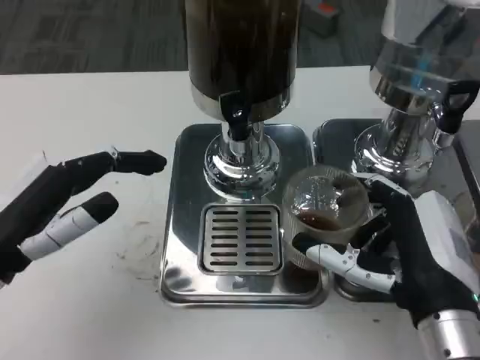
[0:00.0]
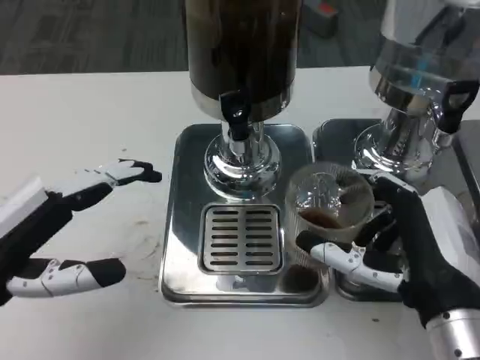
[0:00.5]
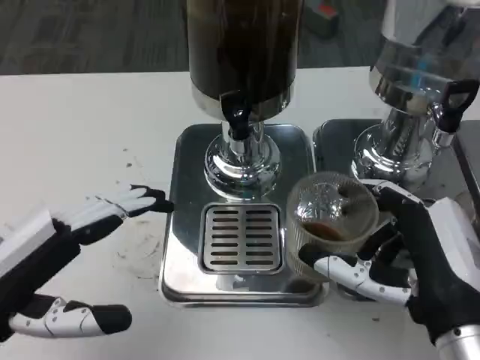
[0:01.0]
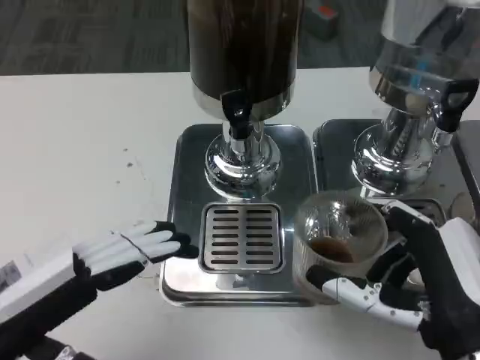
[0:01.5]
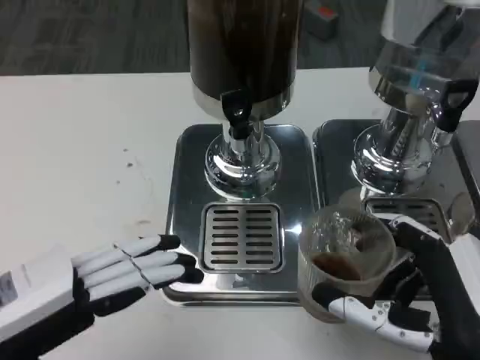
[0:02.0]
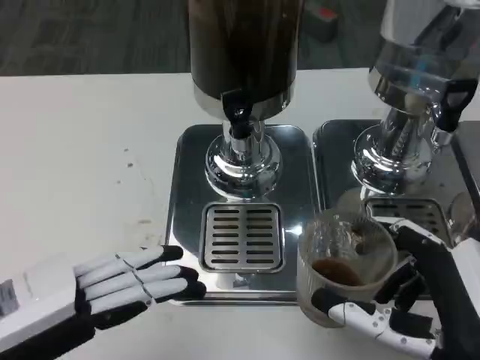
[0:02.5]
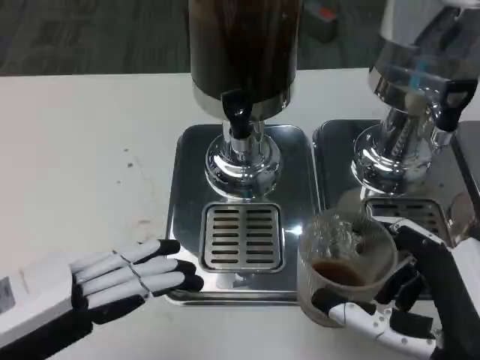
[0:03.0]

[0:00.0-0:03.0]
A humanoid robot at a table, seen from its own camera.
Task of the whole recording: Grasp the cup under the faucet to collect the drink, then remove the cup.
0:00.0 to 0:01.5: The left hand is displaced backward by some 5 cm.
0:01.5 to 0:03.0: The hands stay close to where they were, moving slightly.

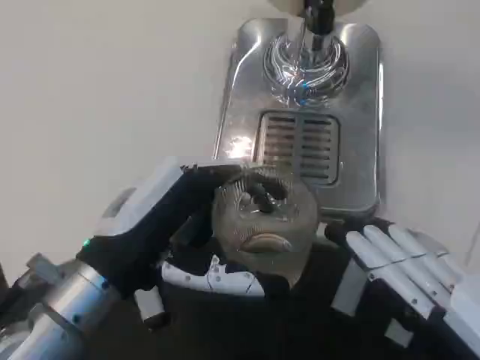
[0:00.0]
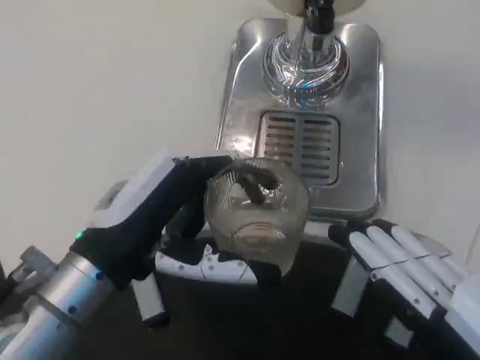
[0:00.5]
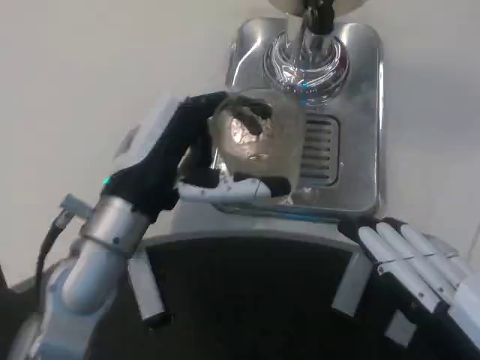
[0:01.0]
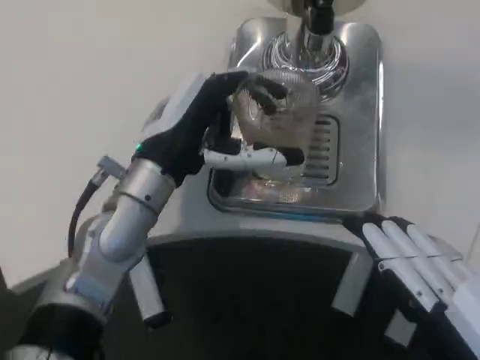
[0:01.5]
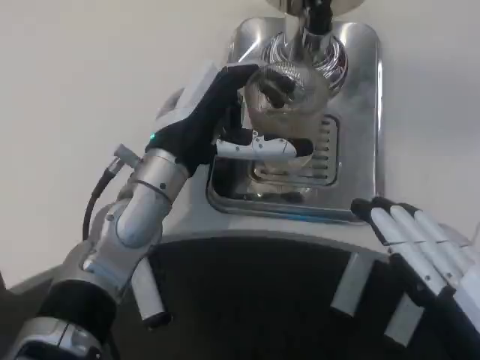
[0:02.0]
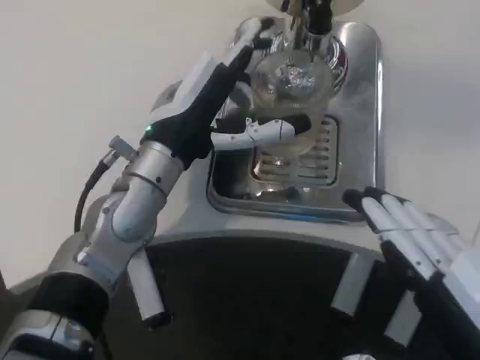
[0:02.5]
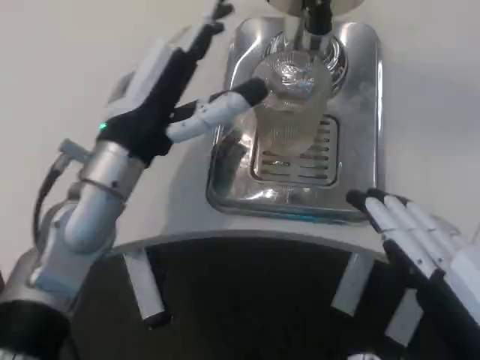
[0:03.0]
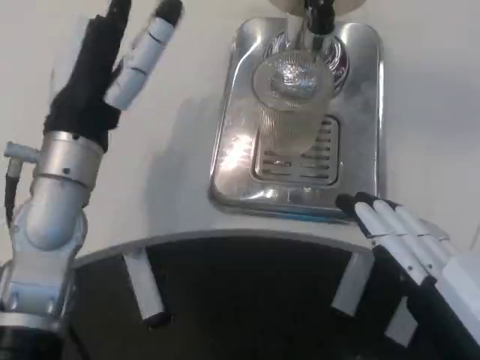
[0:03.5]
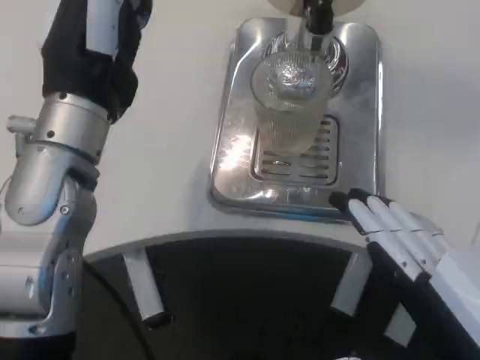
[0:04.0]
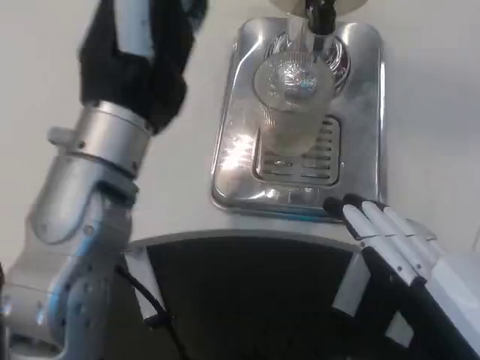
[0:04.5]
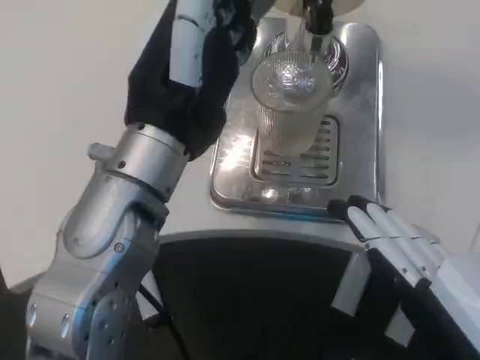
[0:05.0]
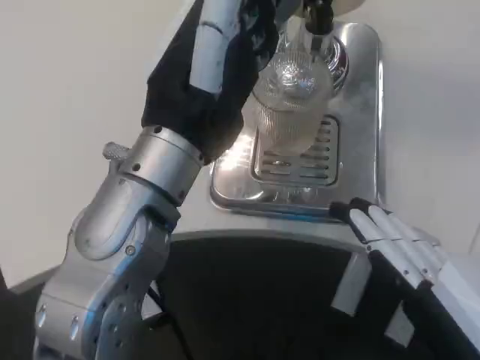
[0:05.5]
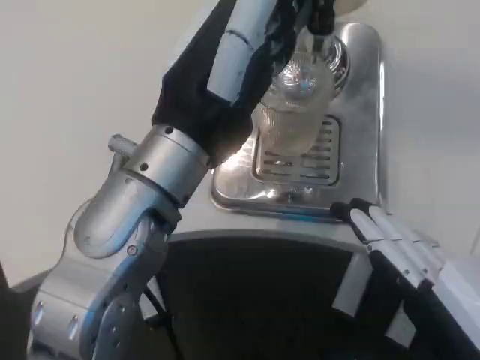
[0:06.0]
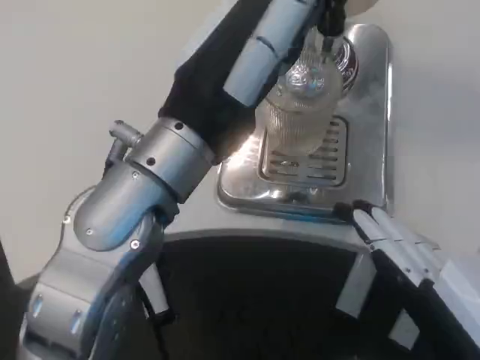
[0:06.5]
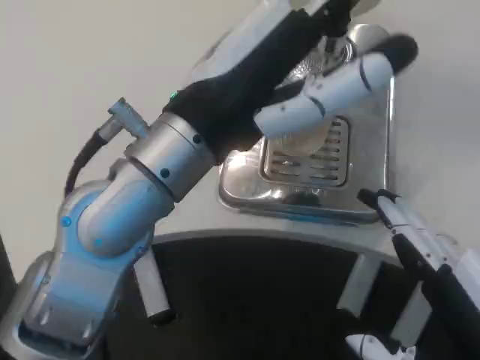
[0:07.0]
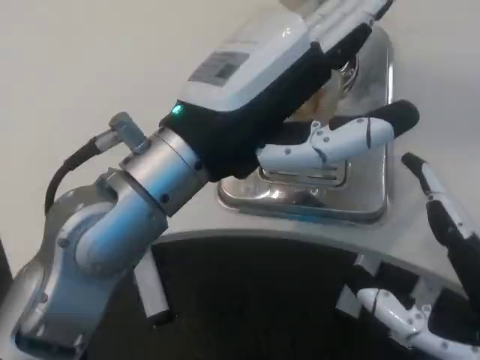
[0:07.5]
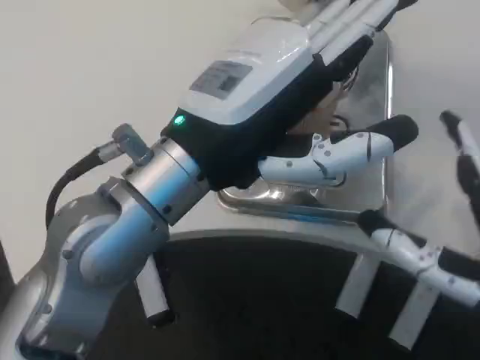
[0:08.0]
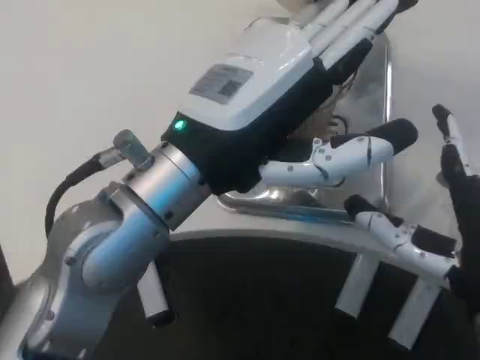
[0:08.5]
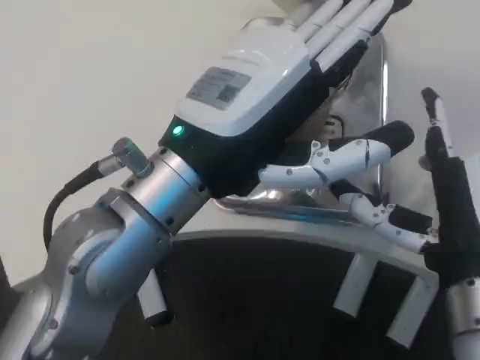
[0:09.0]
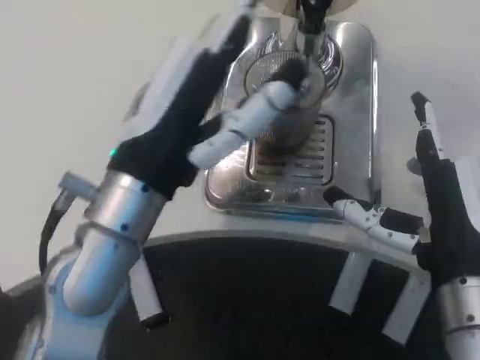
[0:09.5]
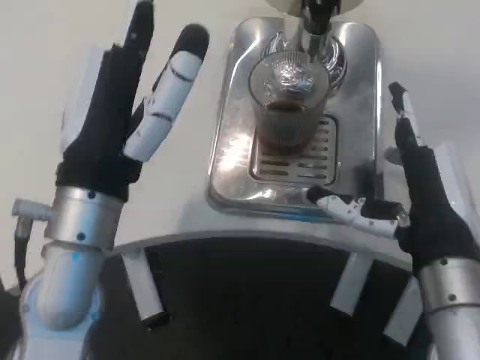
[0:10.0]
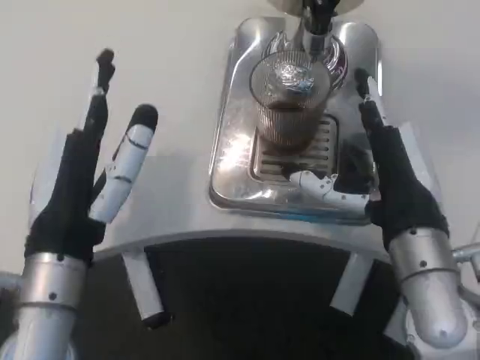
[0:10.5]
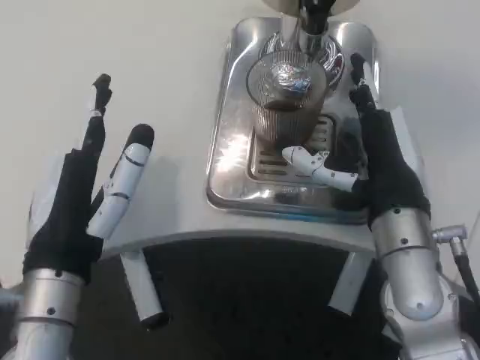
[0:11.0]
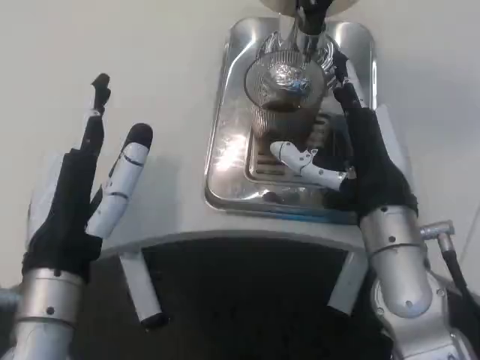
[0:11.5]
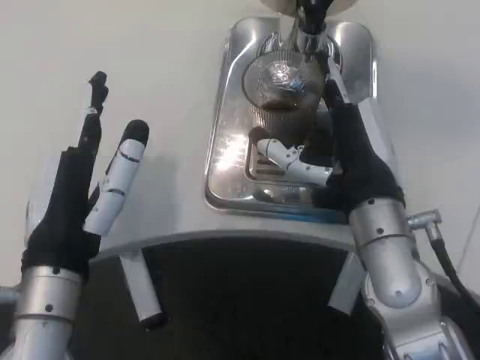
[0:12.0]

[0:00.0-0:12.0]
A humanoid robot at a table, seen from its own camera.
Task of the whole recording: Grasp the cup under the faucet to collect the drink, then remove the cup.
0:00.0 to 0:02.0: The left hand heads forward and to the right, covering approximately 15 cm.
0:02.0 to 0:04.0: The left hand is displaced upward and backward by some 10 cm.
0:04.0 to 0:06.0: The left hand travels to the right by approximately 5 cm.
0:06.0 to 0:08.0: The right hand travels forward by approximately 5 cm.
0:08.0 to 0:10.0: The left hand is displaced downward by approximately 5 cm. Meanwhile the right hand heads forward, covering some 10 cm.
0:10.0 to 0:12.0: The right hand goes approximately 5 cm forward; the left hand goes about 5 cm downward.

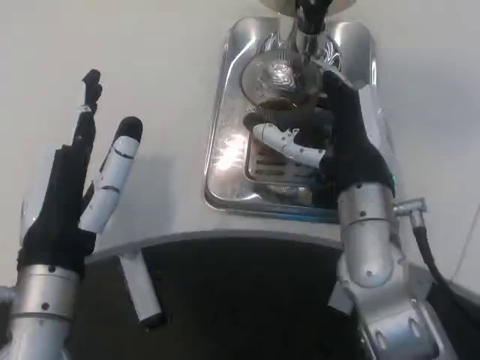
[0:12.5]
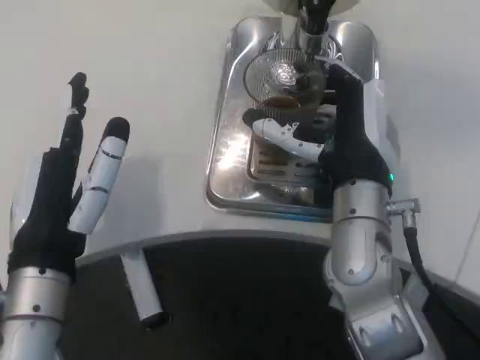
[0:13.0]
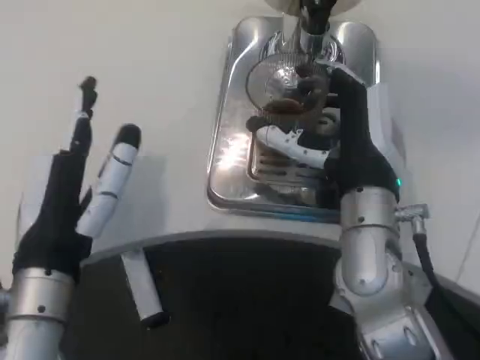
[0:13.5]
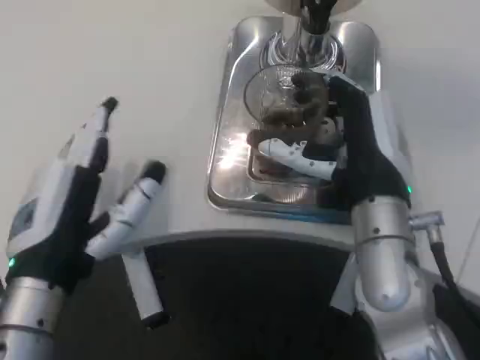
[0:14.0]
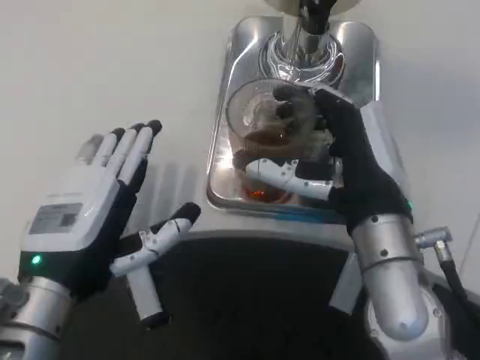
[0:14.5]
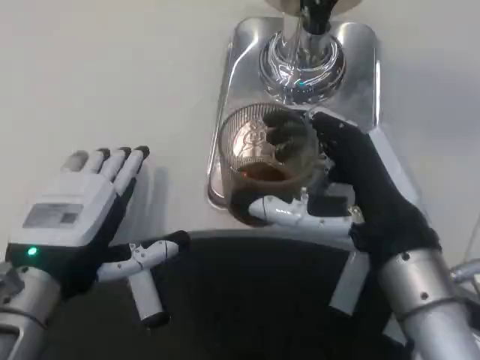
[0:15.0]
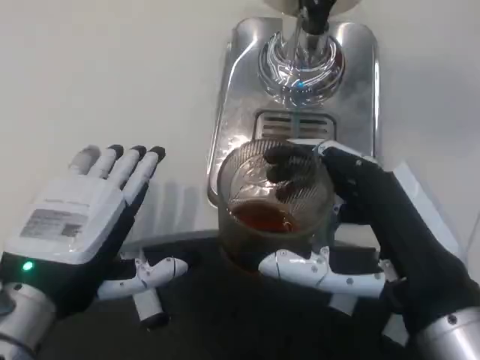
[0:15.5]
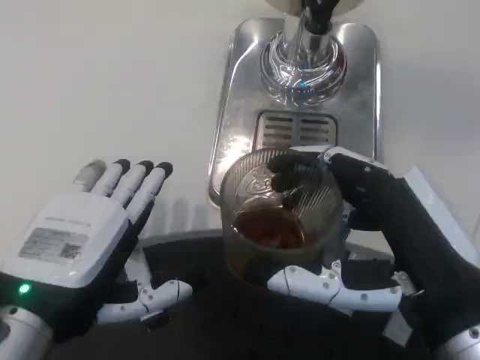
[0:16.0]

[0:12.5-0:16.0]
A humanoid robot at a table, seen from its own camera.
Task of the whole recording: Grasp the cup under the faucet to collect the drink, then remove the cup.
0:14.5 to 0:16.0: The right hand travels backward by roughly 10 cm; the left hand moves some 5 cm.

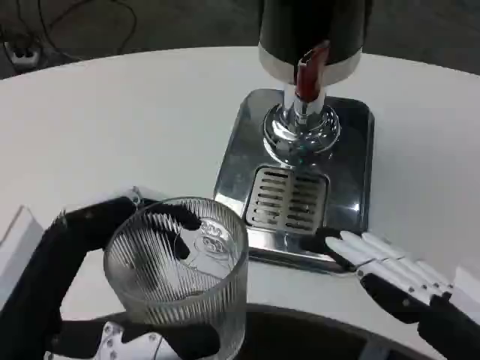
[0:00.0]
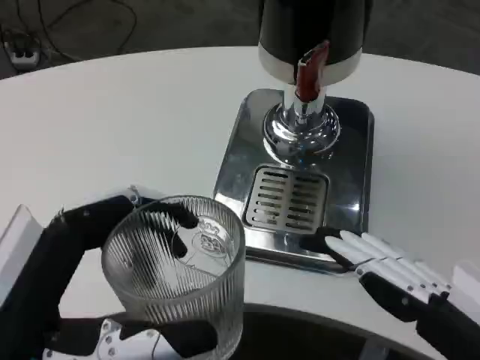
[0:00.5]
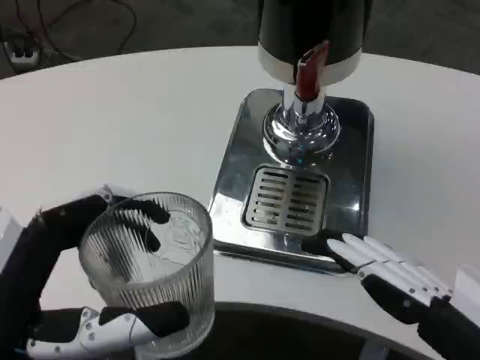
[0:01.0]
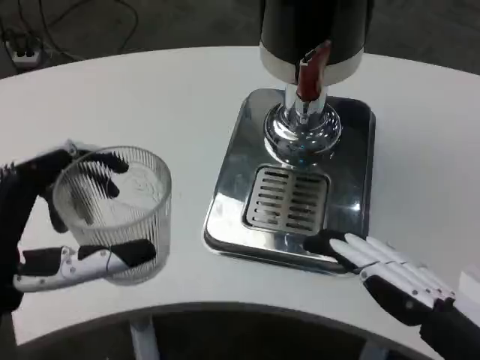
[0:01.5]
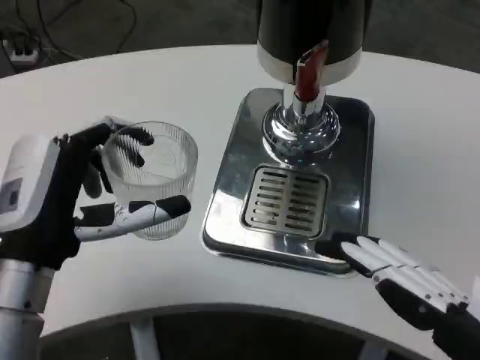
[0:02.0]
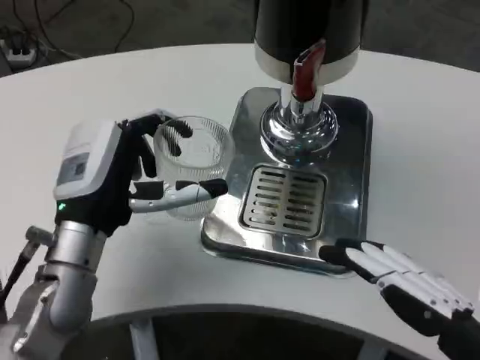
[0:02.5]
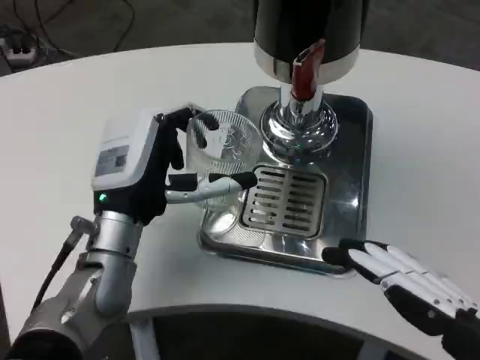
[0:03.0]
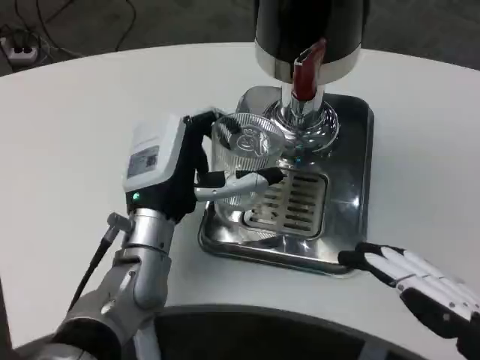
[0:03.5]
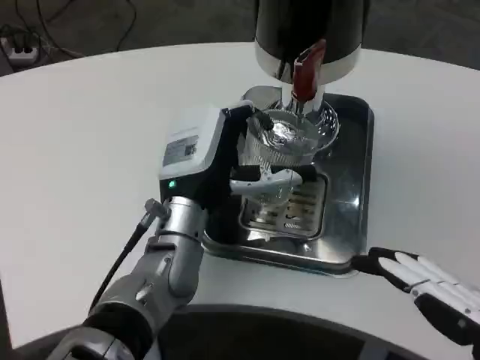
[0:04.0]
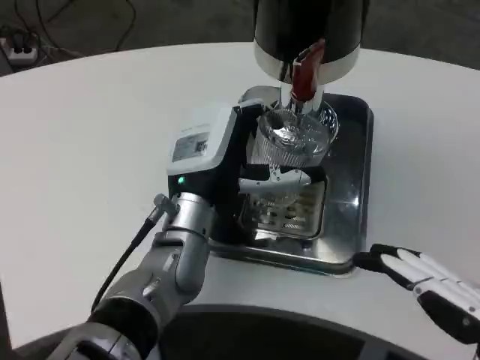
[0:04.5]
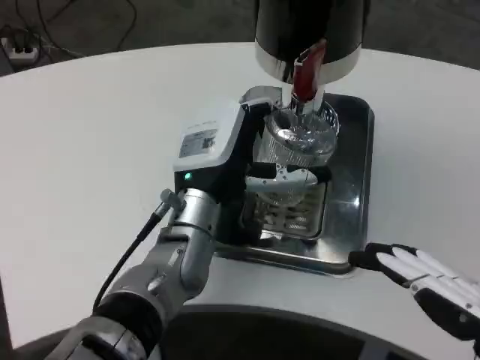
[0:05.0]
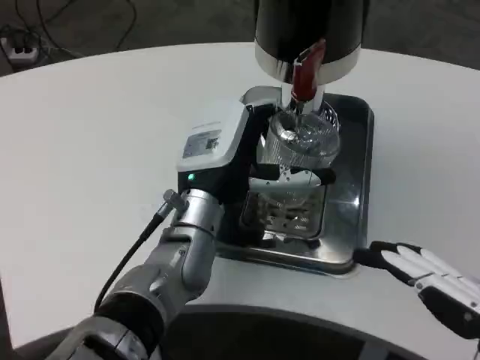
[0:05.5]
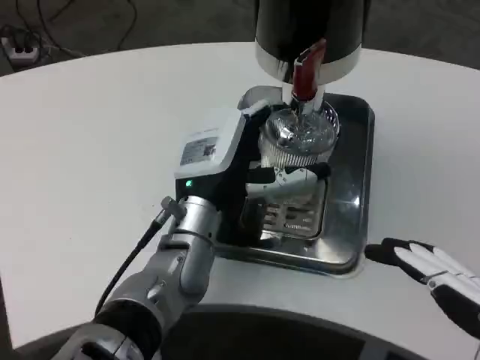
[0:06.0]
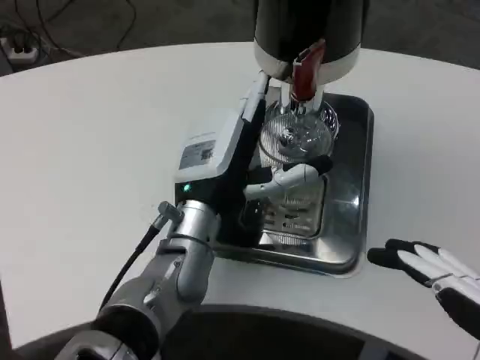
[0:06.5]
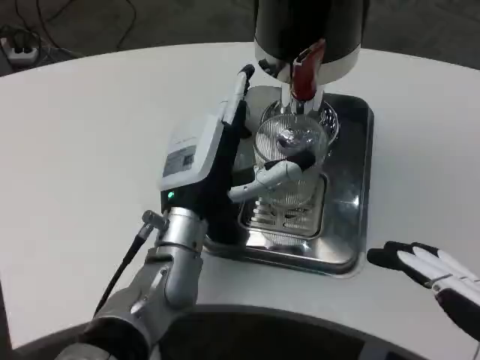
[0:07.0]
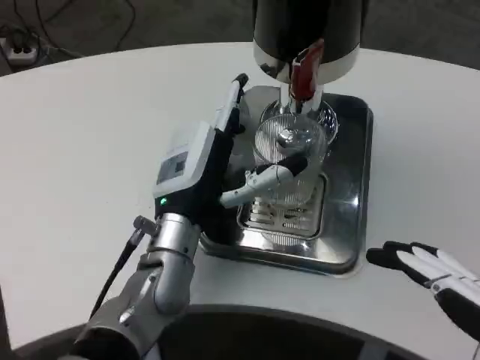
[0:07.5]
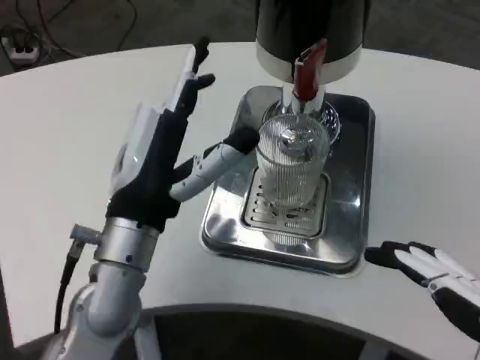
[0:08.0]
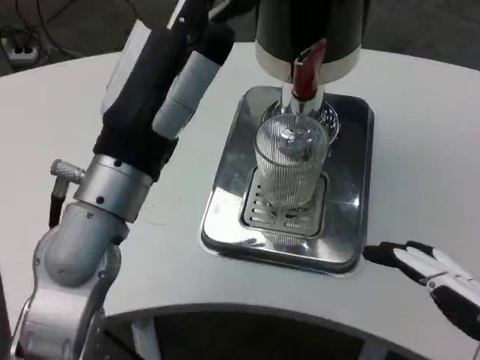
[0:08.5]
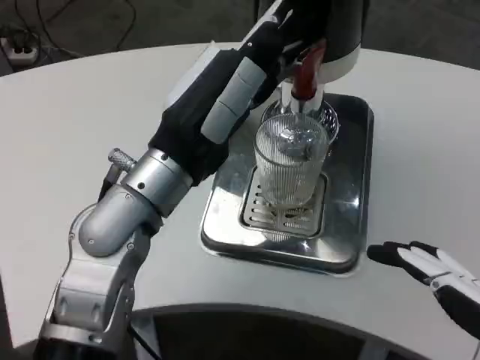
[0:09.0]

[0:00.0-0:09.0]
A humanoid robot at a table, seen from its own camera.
Task of the whole recording: Grasp the cup under the faucet to collect the drink, then remove the cup.
0:00.0 to 0:02.0: The left hand heads forward, covering some 15 cm.
0:02.0 to 0:04.5: The left hand heads to the right and forward, covering roughly 15 cm.
0:04.5 to 0:07.0: The hands stay close to where they were, moving slightly.
0:07.0 to 0:09.0: The left hand goes roughly 10 cm upward.
